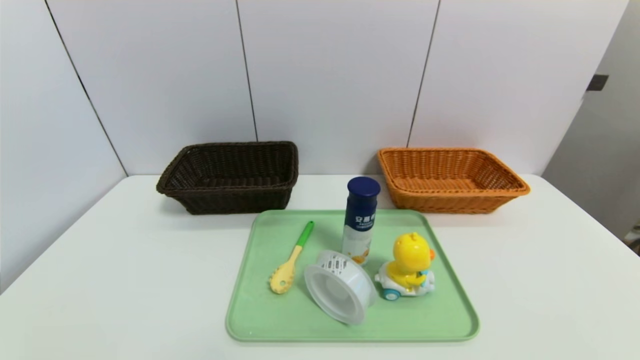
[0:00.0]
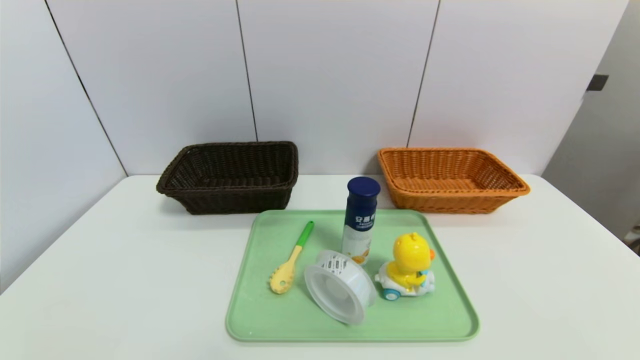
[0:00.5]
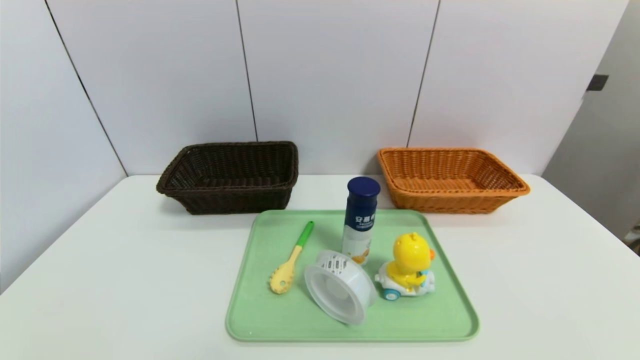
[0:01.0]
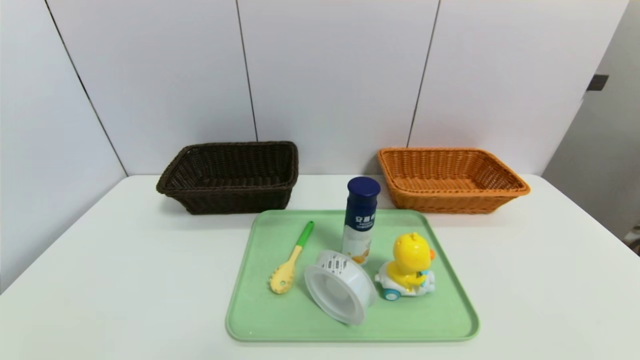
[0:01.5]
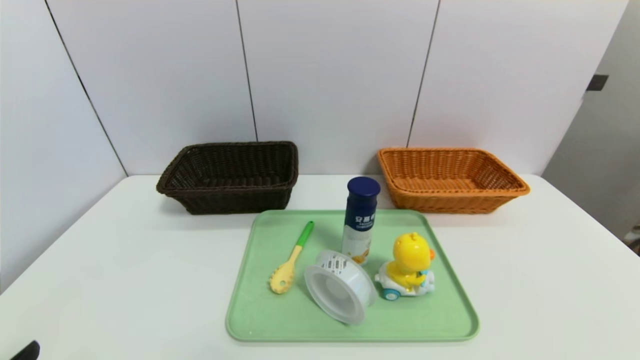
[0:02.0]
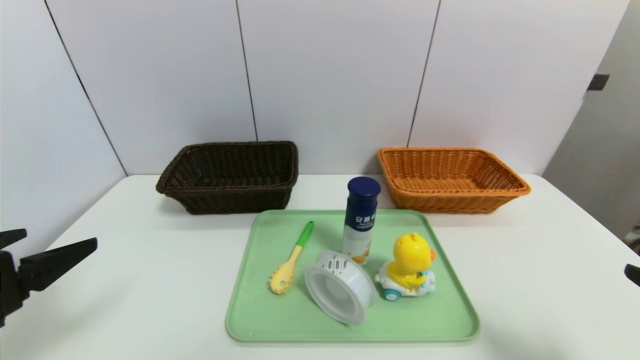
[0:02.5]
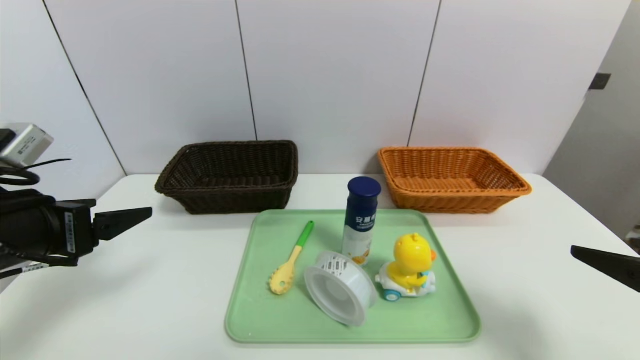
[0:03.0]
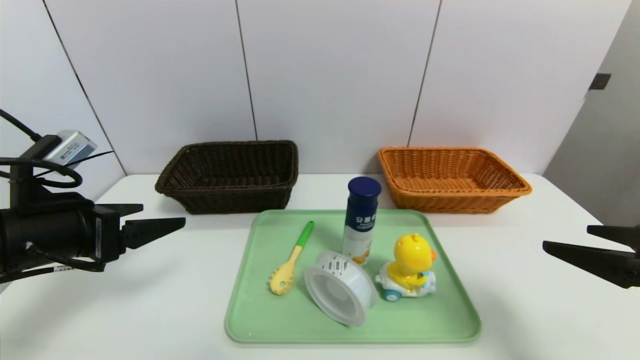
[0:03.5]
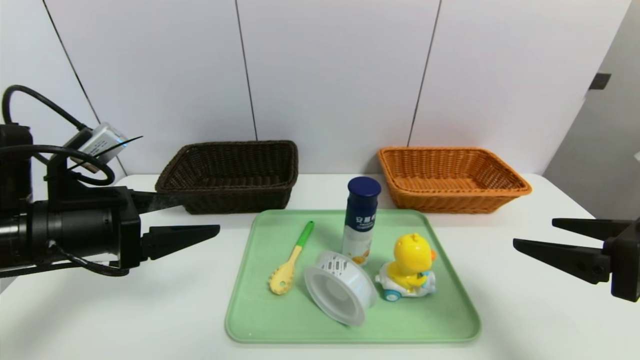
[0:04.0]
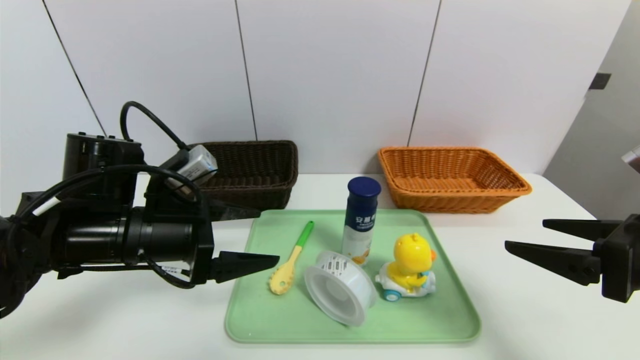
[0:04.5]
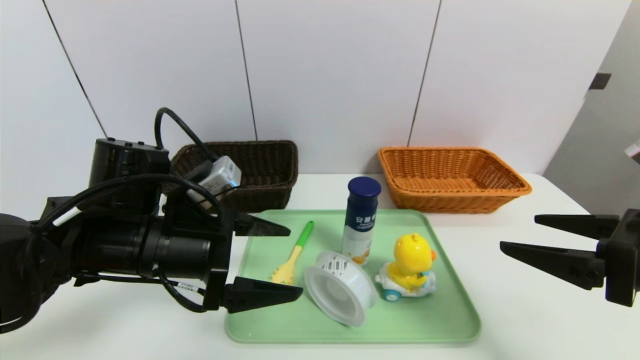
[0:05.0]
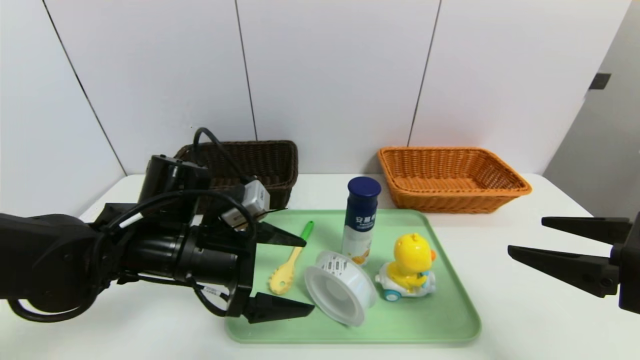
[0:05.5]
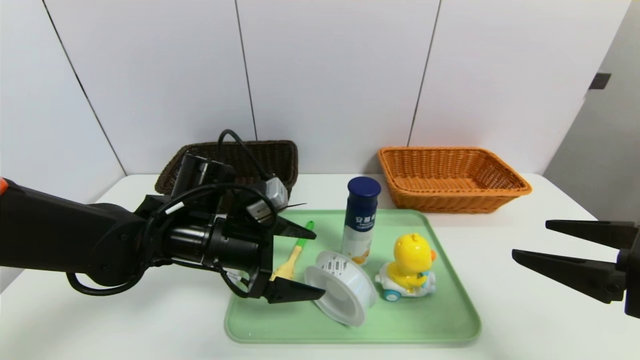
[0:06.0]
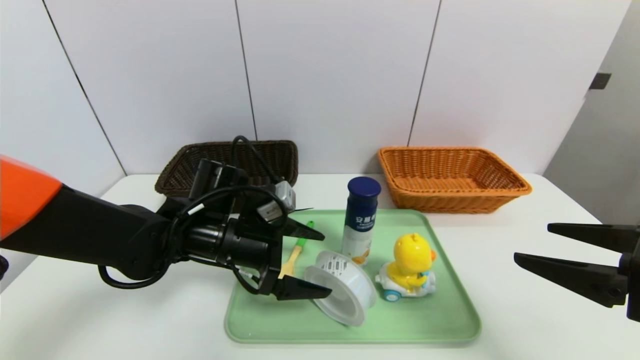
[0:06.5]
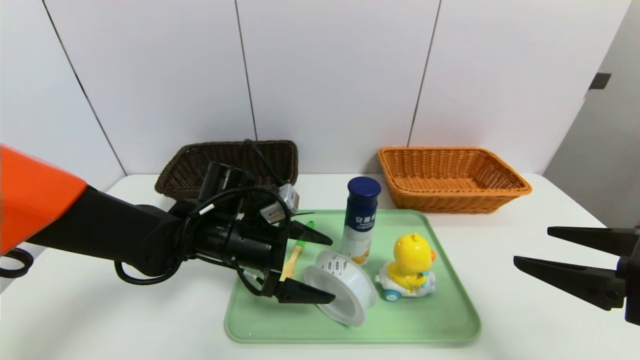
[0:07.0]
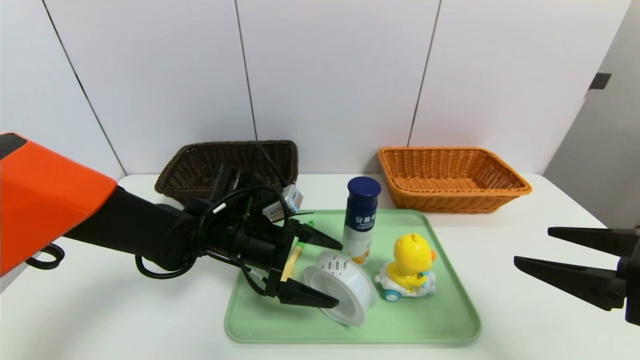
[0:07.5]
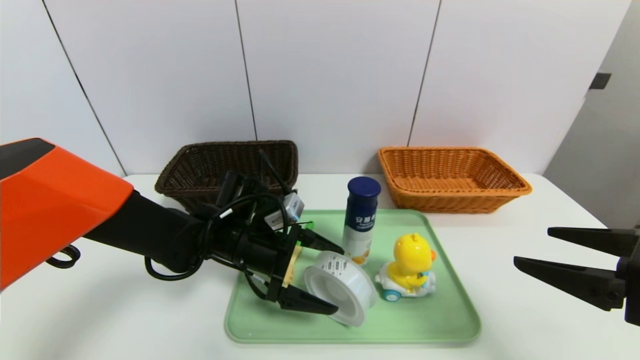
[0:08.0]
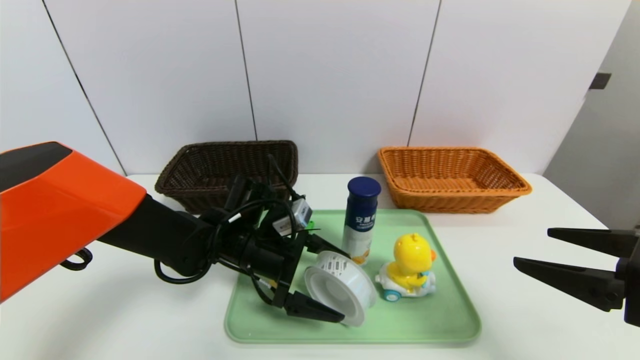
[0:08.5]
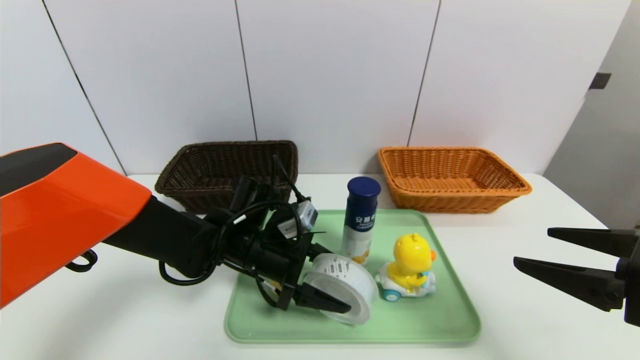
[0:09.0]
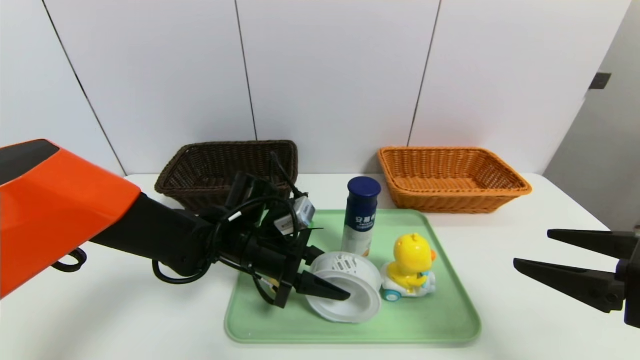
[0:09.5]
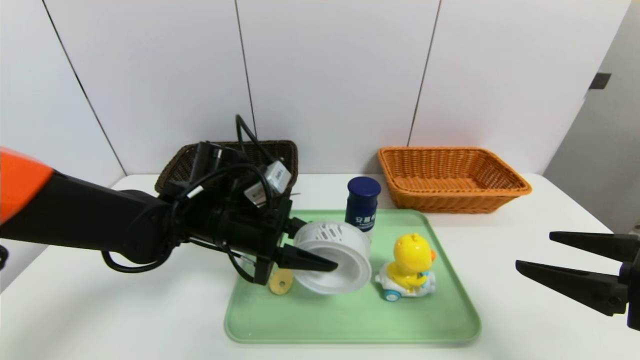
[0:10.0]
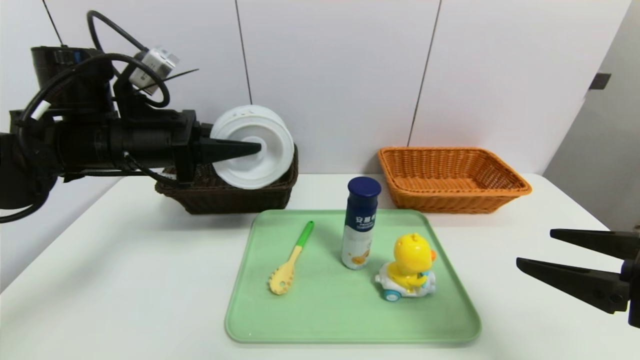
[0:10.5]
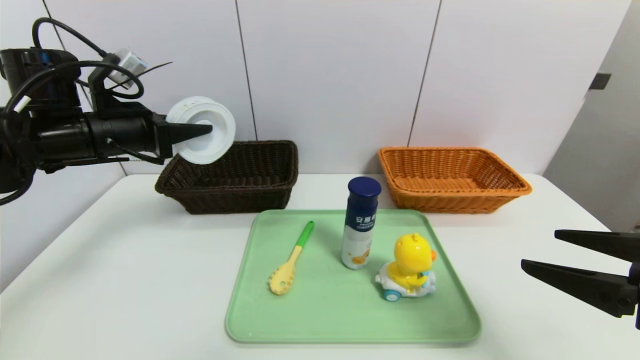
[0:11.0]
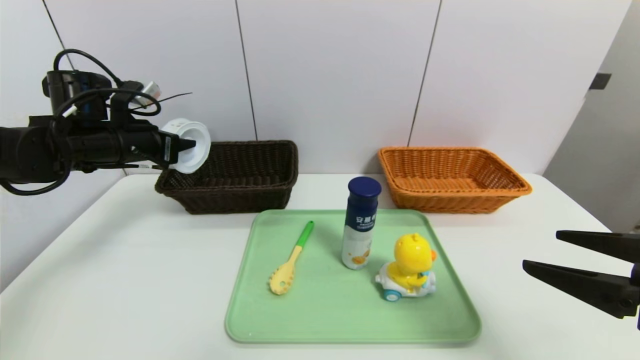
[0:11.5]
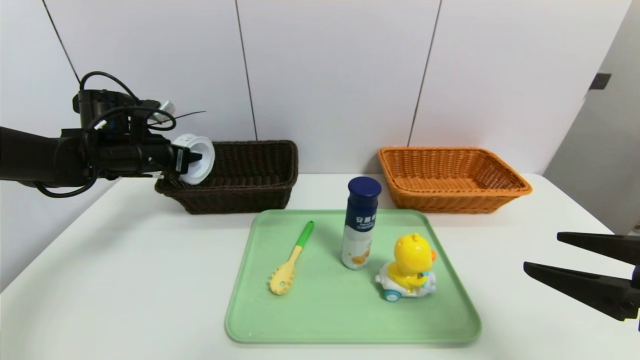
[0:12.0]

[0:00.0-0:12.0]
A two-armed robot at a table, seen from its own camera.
Task of the whole recording: place the food in the right basket with the right gripper, and place the non food items in the left basket with the left gripper.
0:02.0 to 0:04.0: The right gripper moves forward and upward, approximately 20 cm. The left gripper heads forward, covering approximately 20 cm.
0:04.0 to 0:06.0: The left gripper travels to the right, downward and forward by about 15 cm.
0:06.0 to 0:08.0: The left gripper ends up roughly 5 cm from where it was.
0:08.0 to 0:10.0: The left gripper moves upward, roughly 5 cm, and closes up.
0:10.0 to 0:12.0: The left gripper travels to the left and forward by roughly 20 cm.

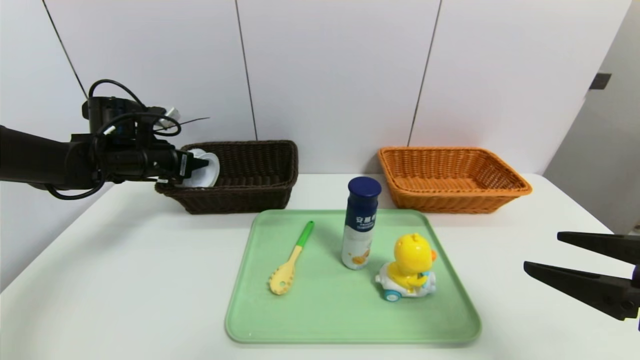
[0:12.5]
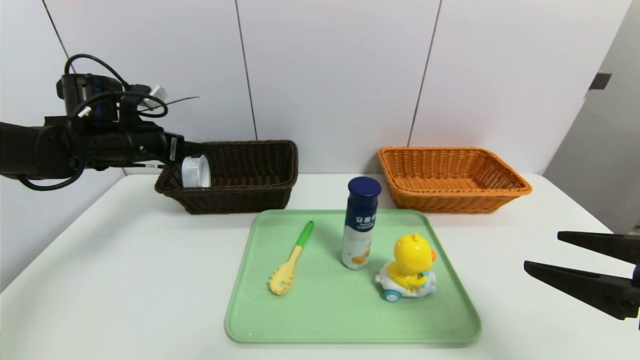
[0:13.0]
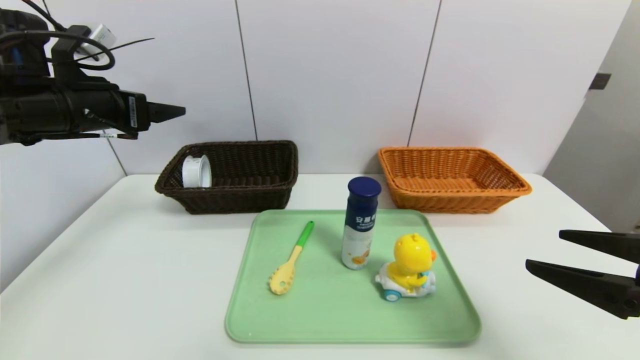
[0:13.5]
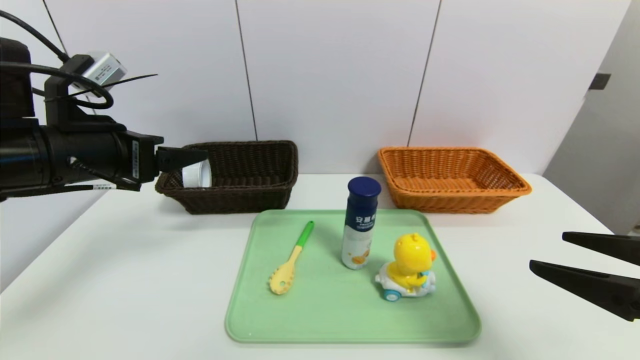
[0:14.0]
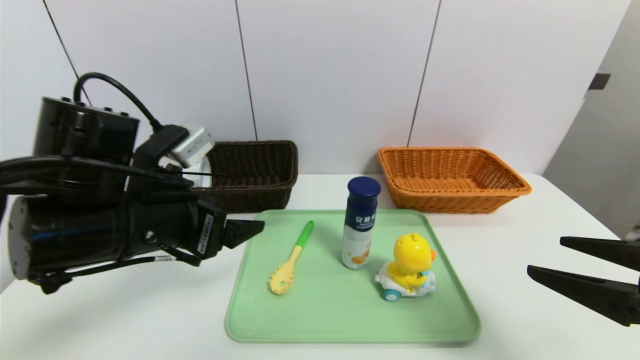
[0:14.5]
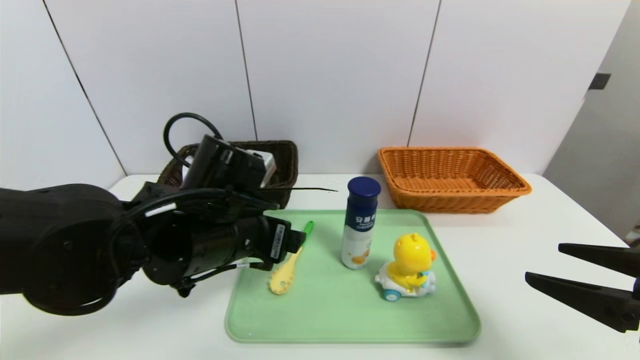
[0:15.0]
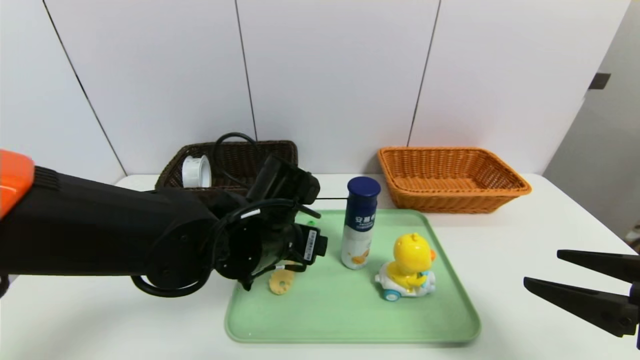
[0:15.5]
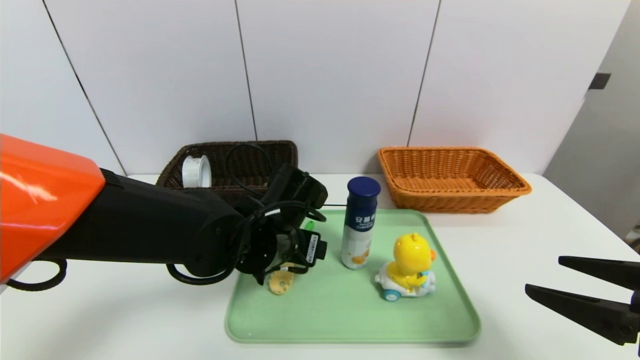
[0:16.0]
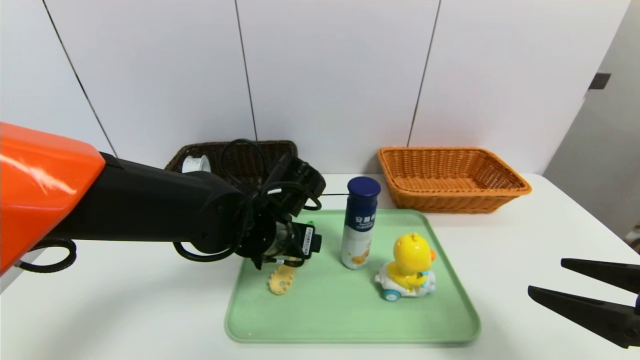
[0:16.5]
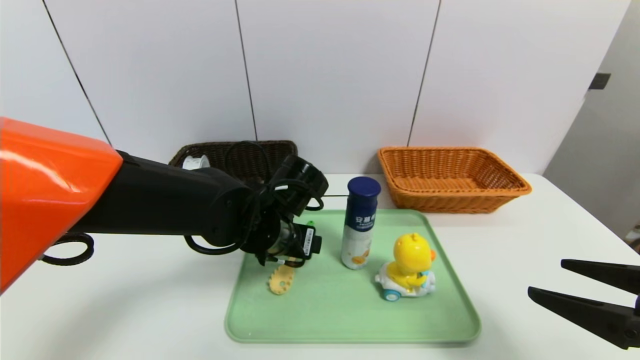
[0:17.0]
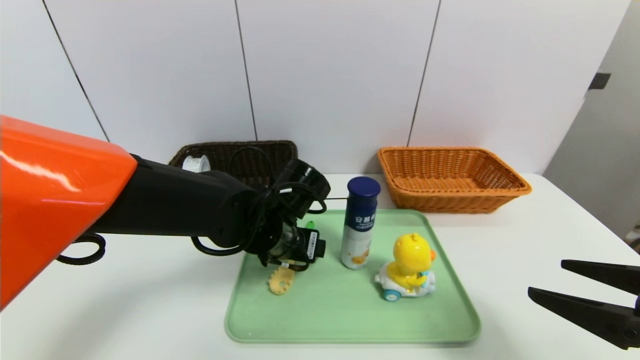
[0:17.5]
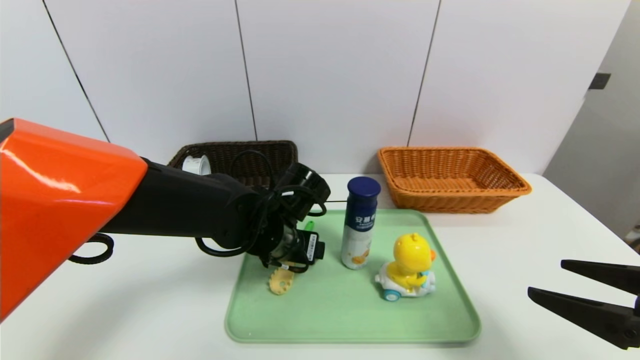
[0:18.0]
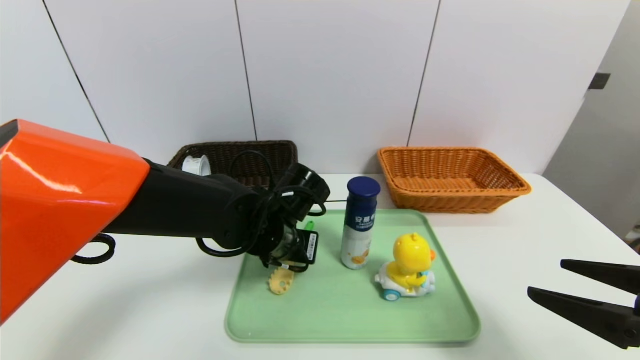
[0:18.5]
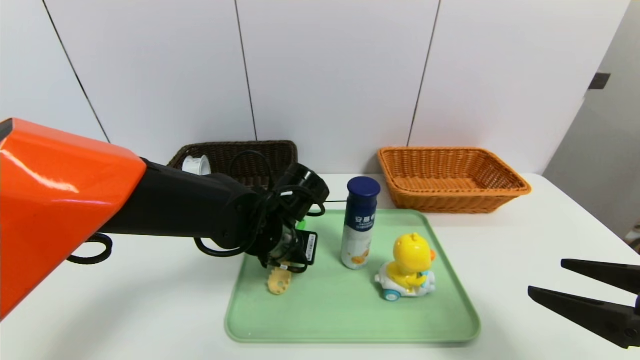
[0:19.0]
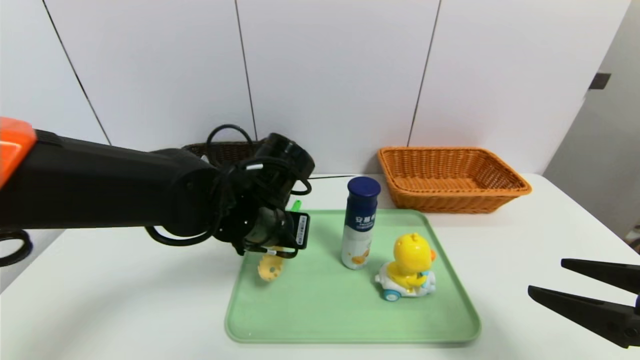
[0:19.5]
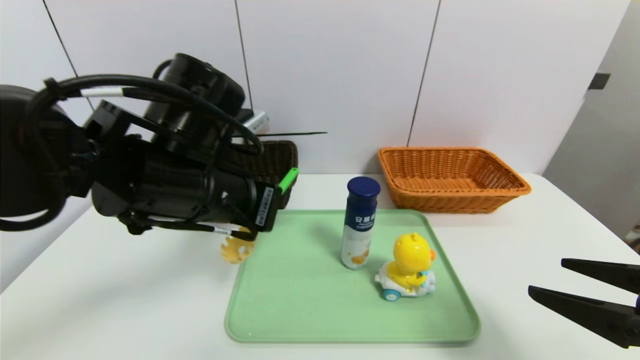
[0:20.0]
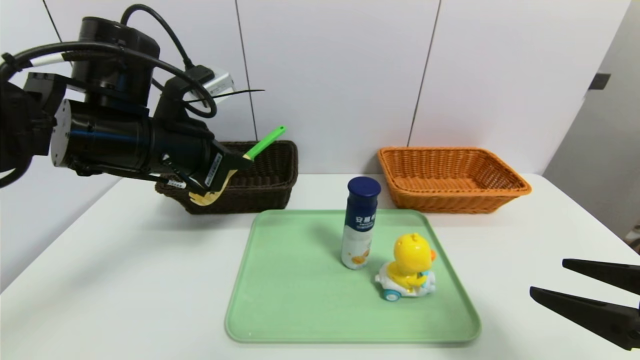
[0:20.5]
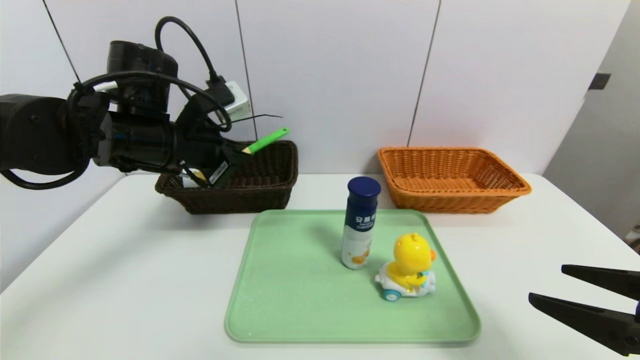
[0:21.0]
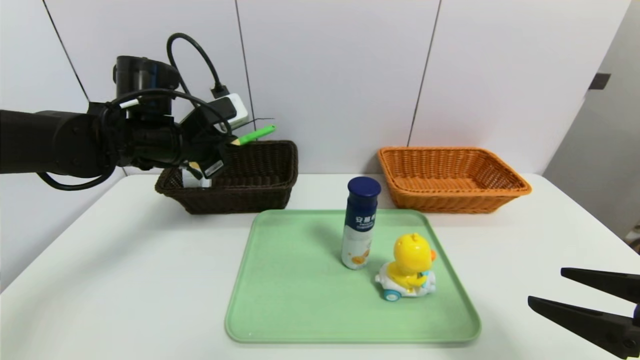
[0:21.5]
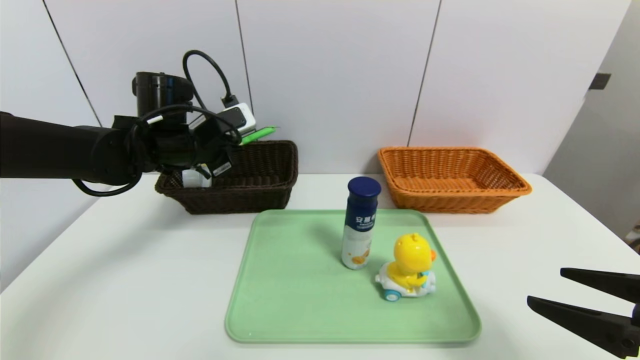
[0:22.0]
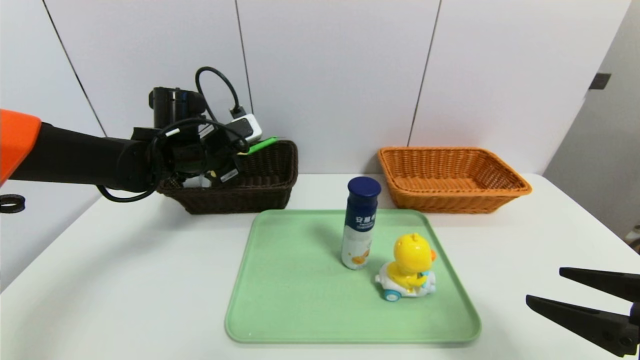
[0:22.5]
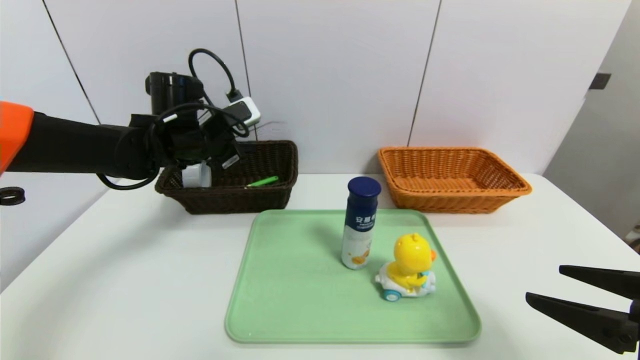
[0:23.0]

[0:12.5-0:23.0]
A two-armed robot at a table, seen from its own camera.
Task of the whole recording: place the food in the right basket with the right gripper, and place the non food items in the left basket with the left gripper.
Step, 0:13.0 to 0:23.0: Grasp the back scratcher and put it in the left basket.
0:12.5 to 0:14.5: The left gripper goes about 25 cm backward and to the right, and opens.
0:14.5 to 0:16.5: The left gripper is displaced to the right, downward and forward by about 15 cm.
0:16.5 to 0:19.0: The left gripper closes.
0:19.0 to 0:21.0: The left gripper shifts about 20 cm to the left and upward.
0:21.0 to 0:23.0: The left gripper heads forward, covering approximately 10 cm, and opens.
